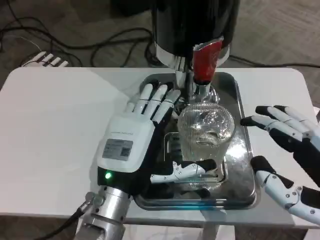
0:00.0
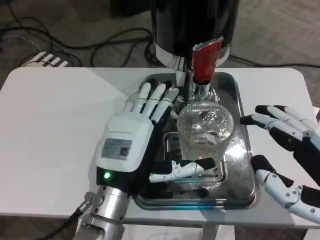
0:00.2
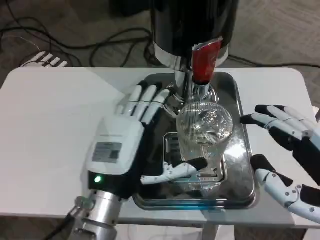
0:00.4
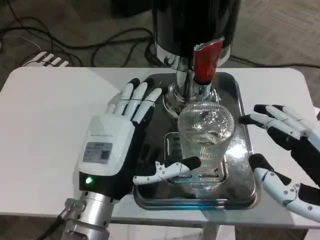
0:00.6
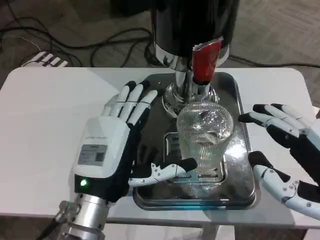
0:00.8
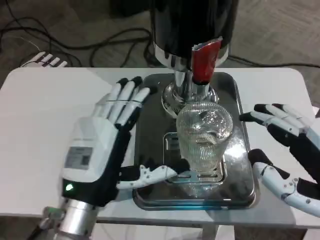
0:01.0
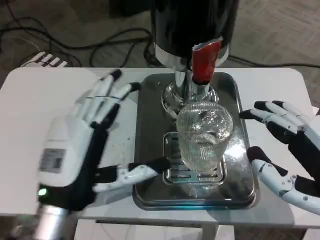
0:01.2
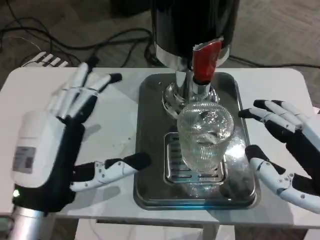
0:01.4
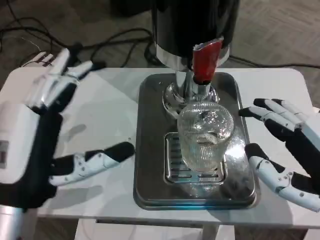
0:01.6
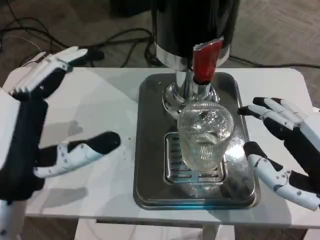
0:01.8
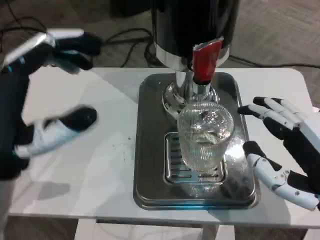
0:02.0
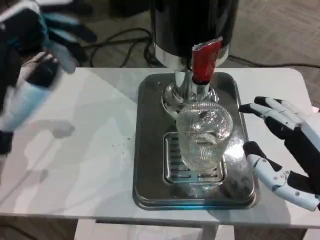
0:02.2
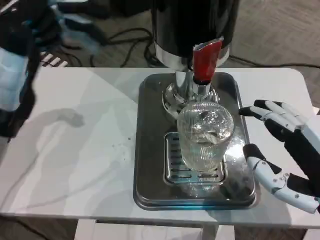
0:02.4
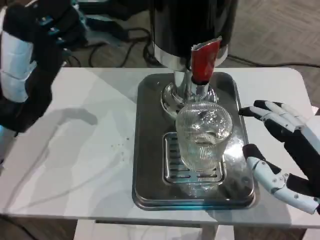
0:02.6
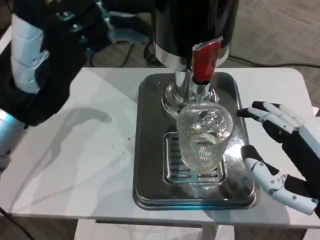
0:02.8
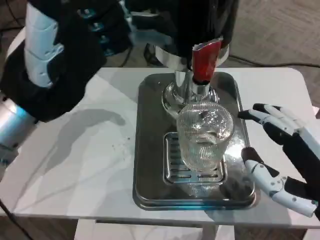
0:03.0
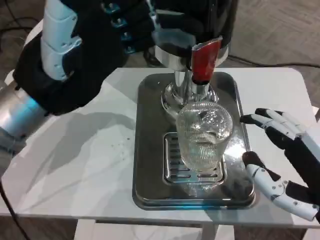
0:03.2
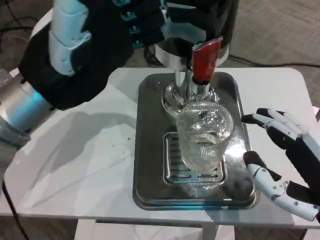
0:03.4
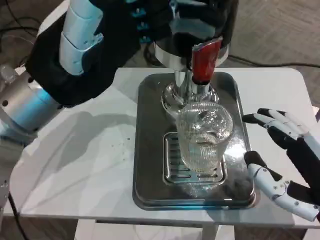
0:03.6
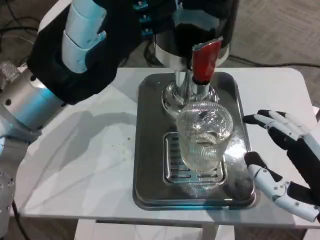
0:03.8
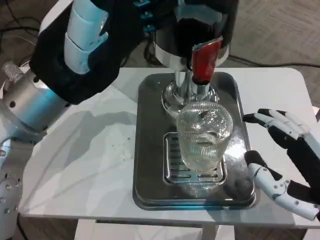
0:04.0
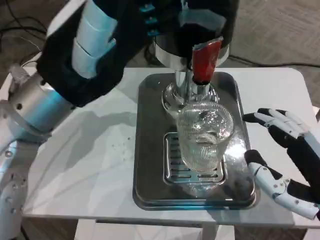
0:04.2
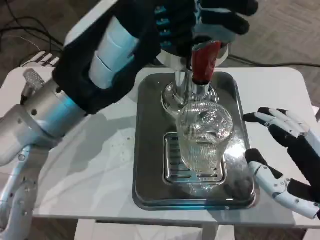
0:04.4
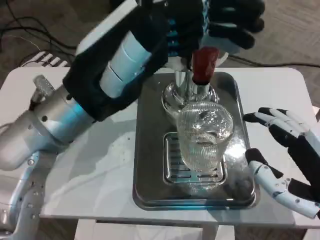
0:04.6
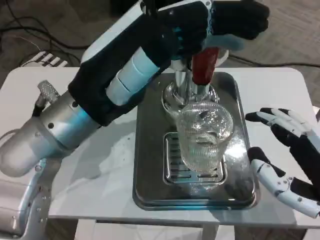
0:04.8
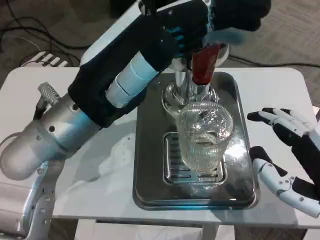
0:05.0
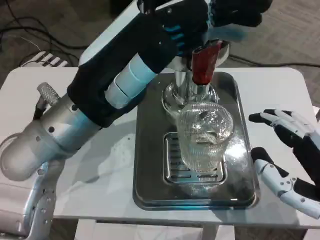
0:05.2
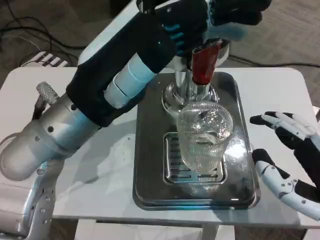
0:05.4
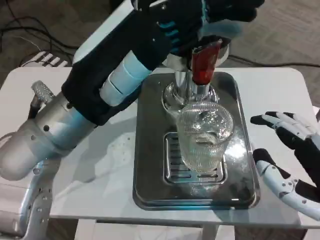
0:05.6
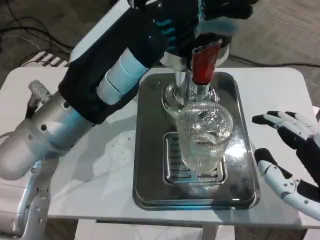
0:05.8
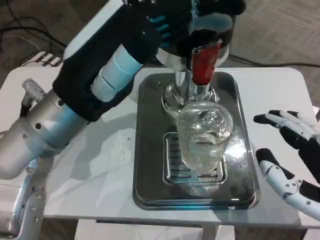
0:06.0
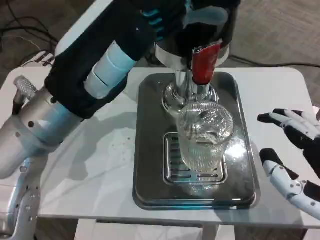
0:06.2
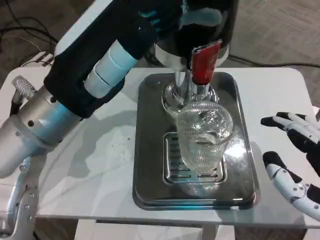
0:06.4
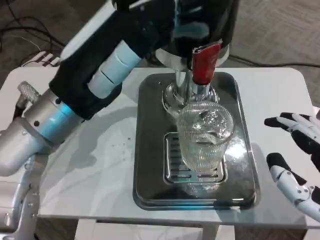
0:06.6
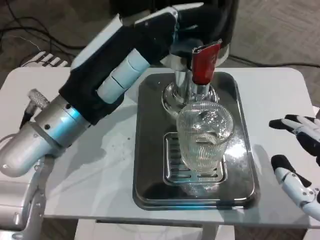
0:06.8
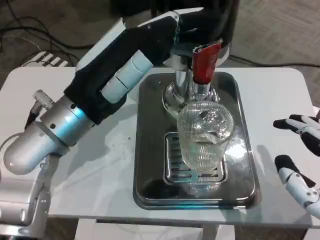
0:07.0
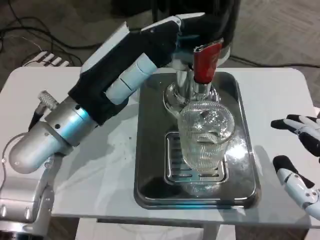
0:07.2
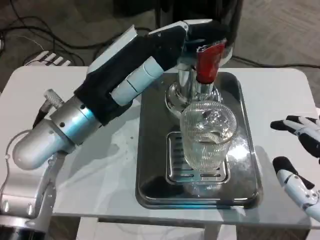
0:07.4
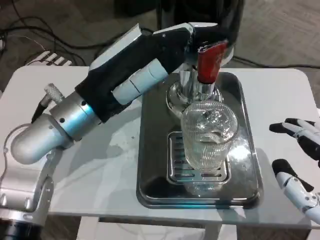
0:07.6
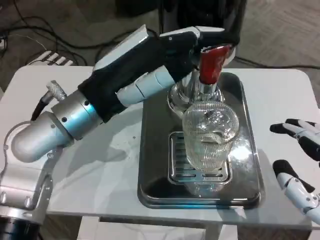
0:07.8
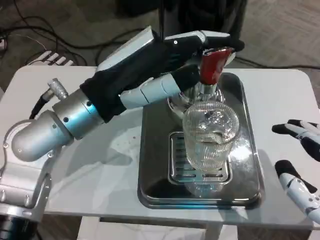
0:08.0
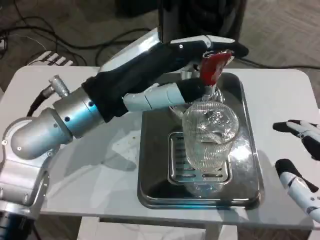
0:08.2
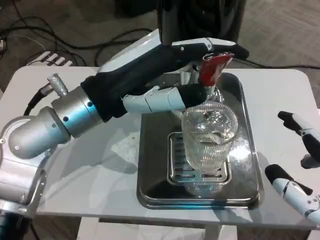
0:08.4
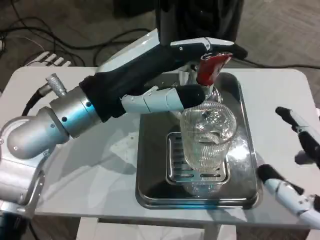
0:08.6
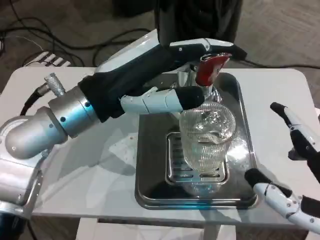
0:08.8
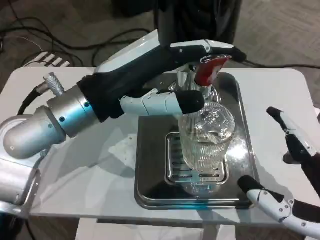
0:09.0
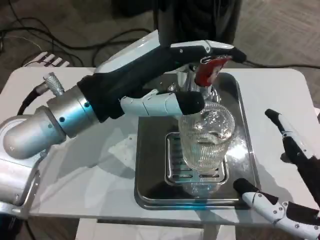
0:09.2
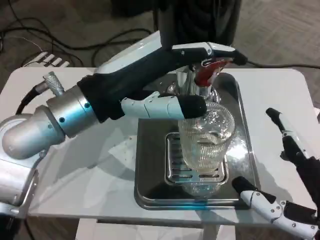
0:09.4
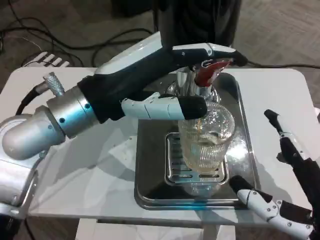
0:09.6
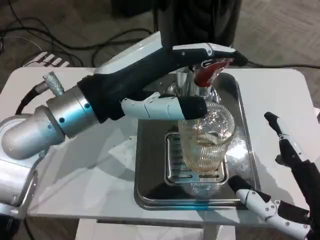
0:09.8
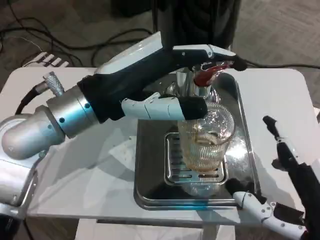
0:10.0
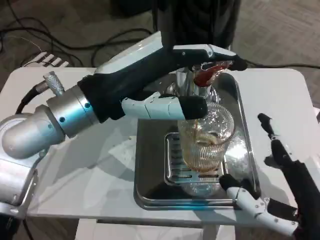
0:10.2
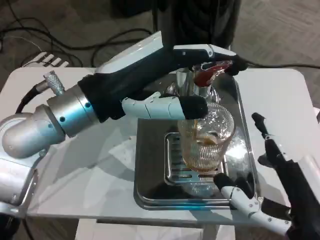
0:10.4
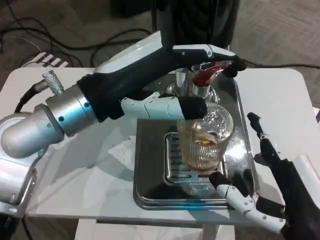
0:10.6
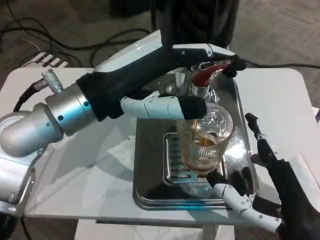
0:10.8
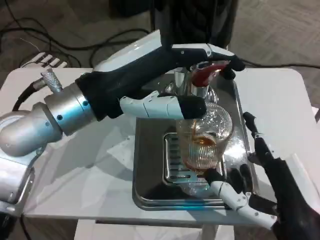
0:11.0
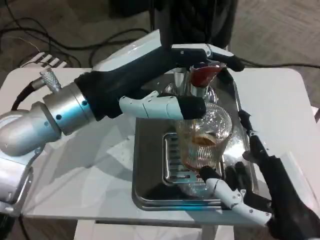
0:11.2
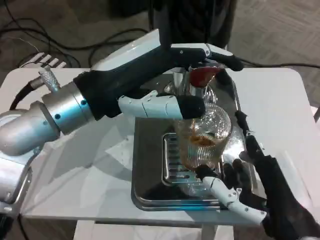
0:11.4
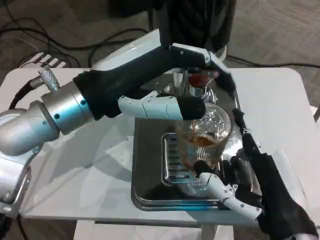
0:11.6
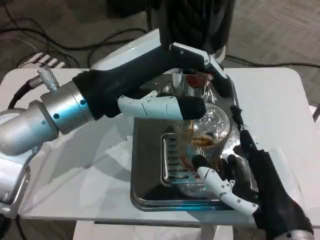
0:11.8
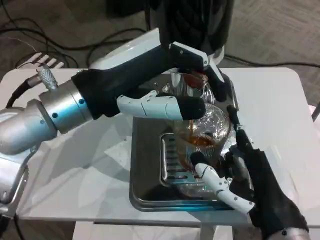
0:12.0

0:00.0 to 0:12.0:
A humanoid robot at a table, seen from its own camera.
Task of the whole recording: Grasp the cup under the faucet to collect the drink, then remove the cup.
0:00.0 to 0:01.6: The left hand goes approximately 10 cm to the left and backward.
0:01.6 to 0:03.0: The left hand shifts approximately 10 cm upward.
0:09.0 to 0:10.4: The right hand moves about 5 cm.
0:10.4 to 0:12.0: The right hand moves about 5 cm.

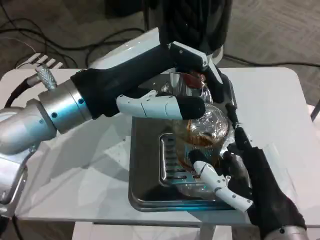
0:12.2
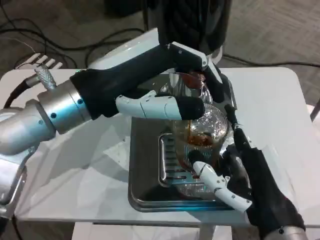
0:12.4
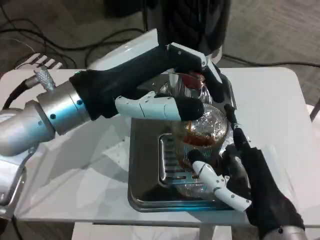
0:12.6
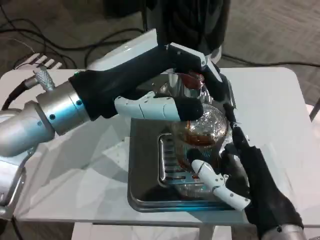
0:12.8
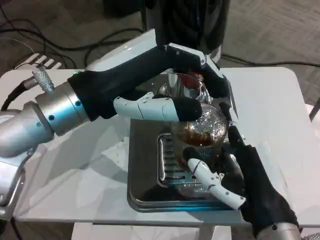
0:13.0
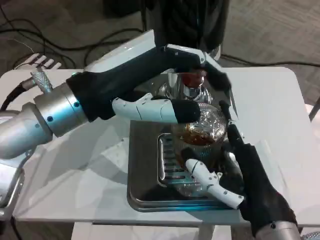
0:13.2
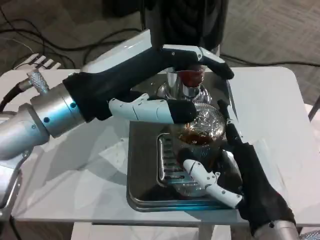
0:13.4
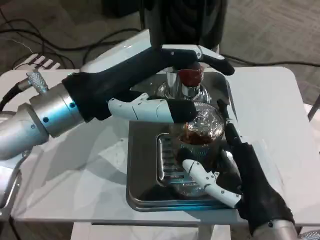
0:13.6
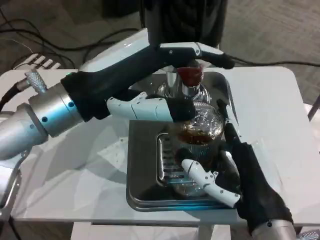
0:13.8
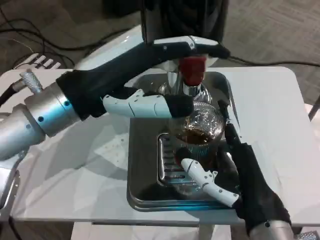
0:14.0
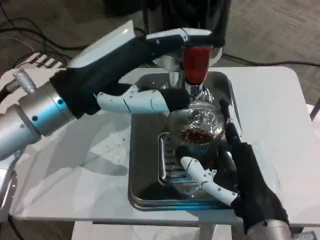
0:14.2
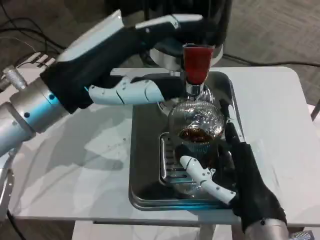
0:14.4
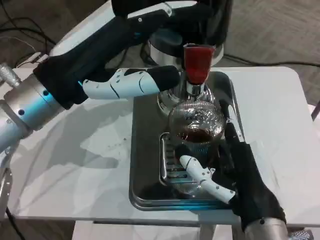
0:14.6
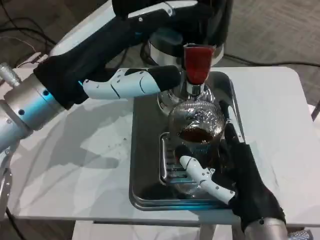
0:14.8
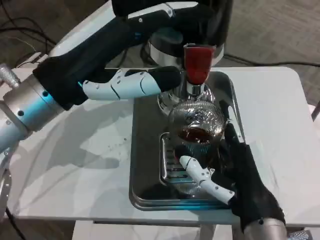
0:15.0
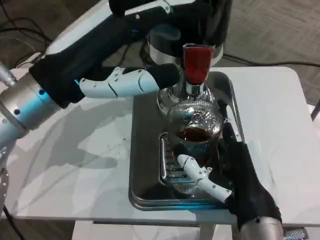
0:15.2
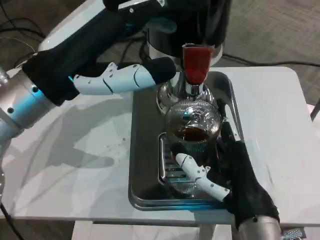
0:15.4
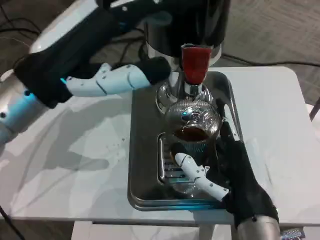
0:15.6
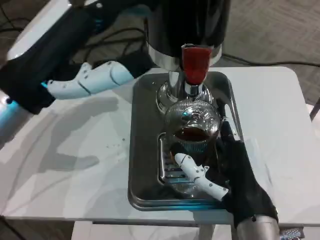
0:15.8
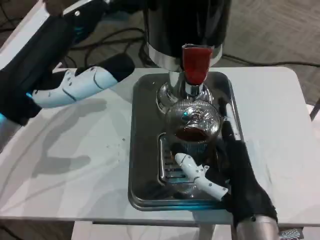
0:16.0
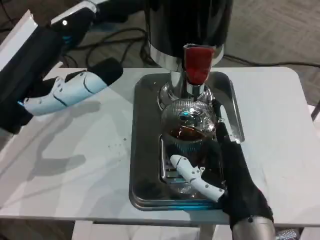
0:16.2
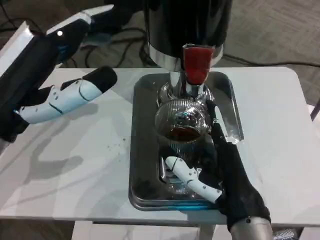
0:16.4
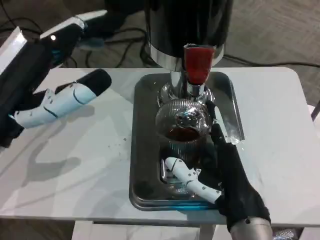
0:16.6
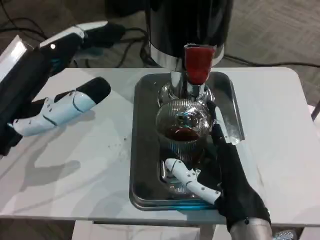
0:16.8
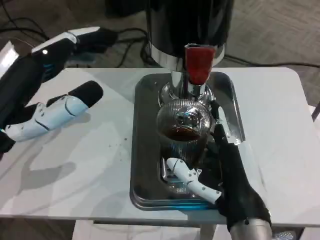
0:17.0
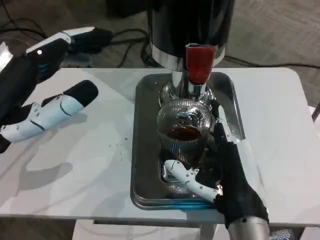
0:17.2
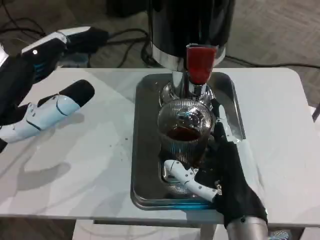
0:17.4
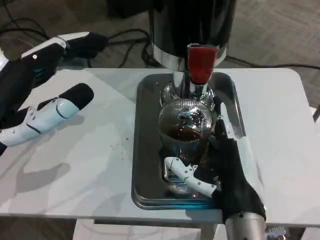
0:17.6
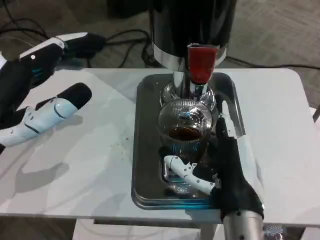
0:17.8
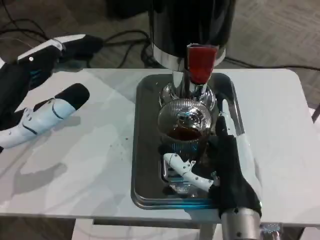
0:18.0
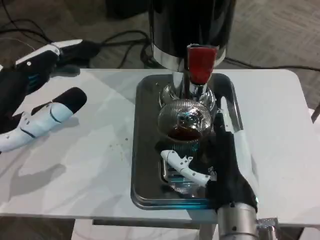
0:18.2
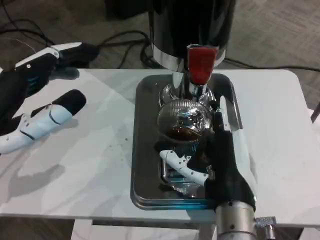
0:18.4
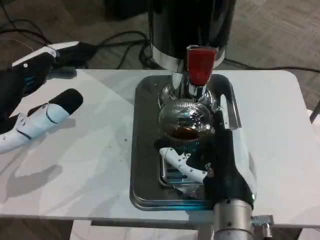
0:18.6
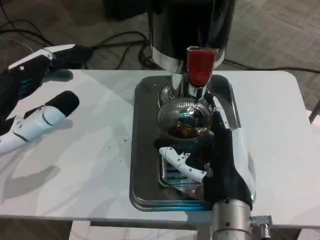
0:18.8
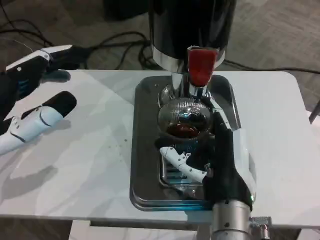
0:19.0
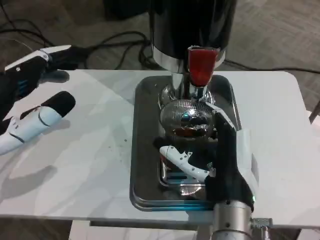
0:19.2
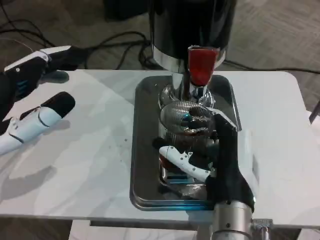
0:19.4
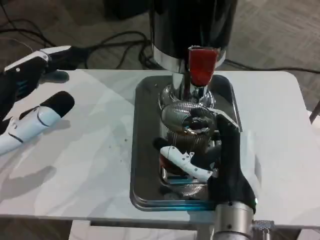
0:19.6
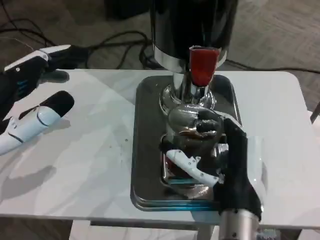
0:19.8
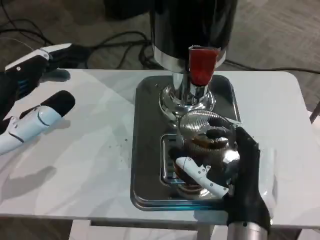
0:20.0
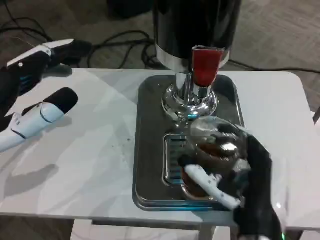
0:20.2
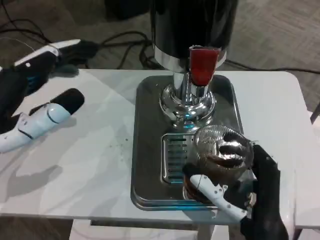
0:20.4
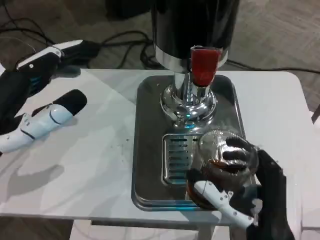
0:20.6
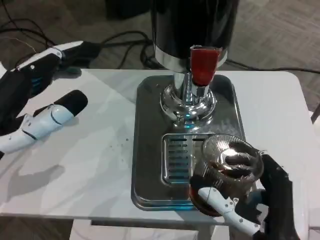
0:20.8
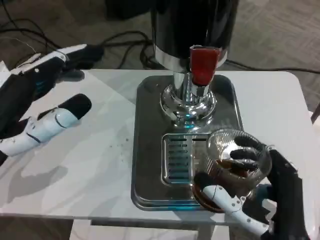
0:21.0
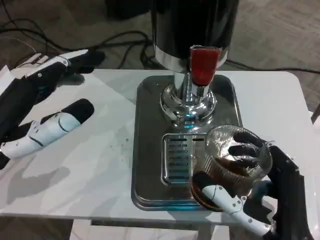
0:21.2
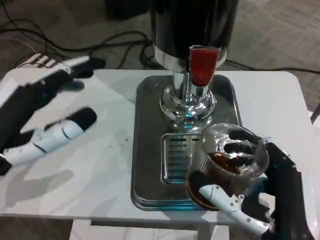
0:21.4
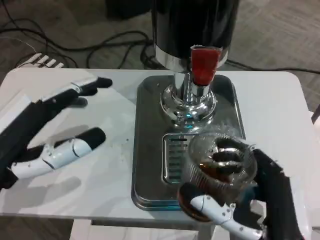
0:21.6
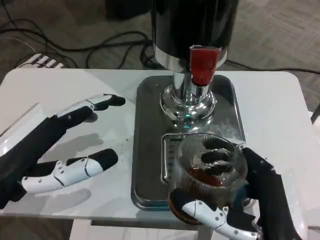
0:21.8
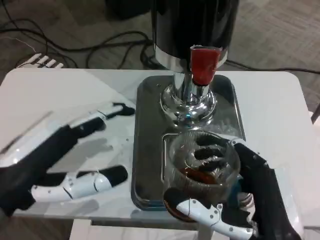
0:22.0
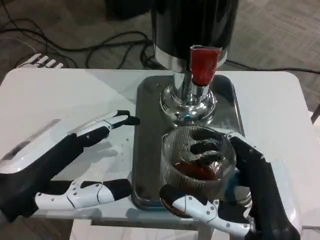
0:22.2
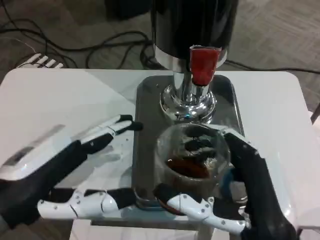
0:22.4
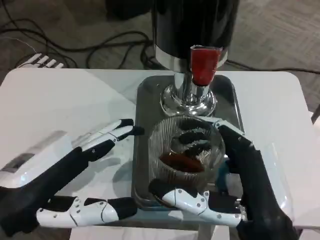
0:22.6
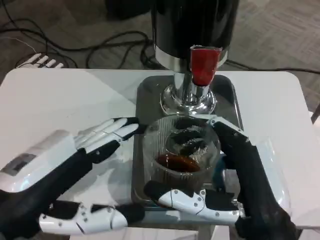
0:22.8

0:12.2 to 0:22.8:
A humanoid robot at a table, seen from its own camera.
Task of the whole recording: Grasp the cup under the faucet to collect the drink, then remove the cup.
0:15.2 to 0:16.8: The left hand is displaced backward by roughly 5 cm.
0:18.2 to 0:19.8: The hands stay close to where they were, moving slightly.
0:19.8 to 0:21.2: The right hand heads backward, covering about 5 cm.
